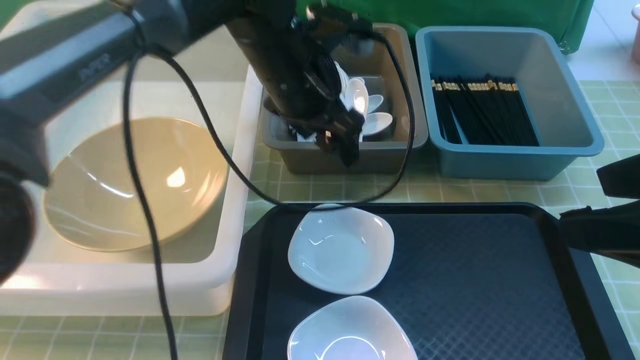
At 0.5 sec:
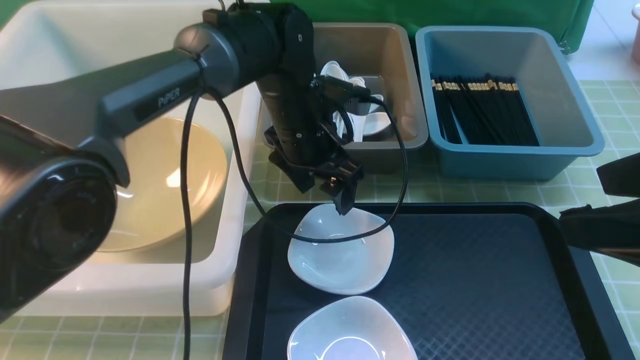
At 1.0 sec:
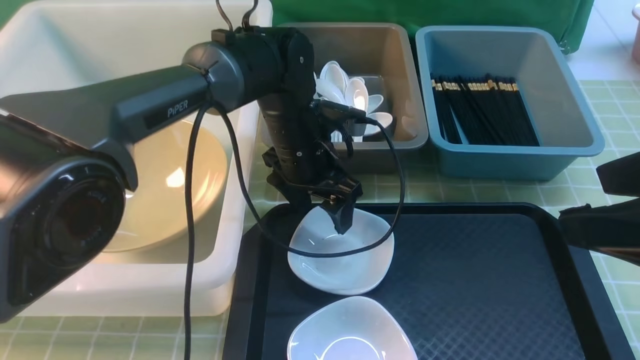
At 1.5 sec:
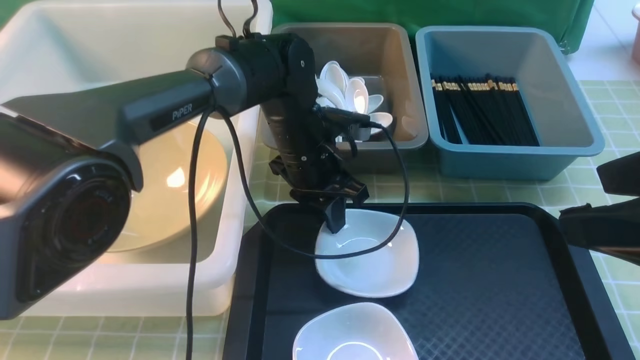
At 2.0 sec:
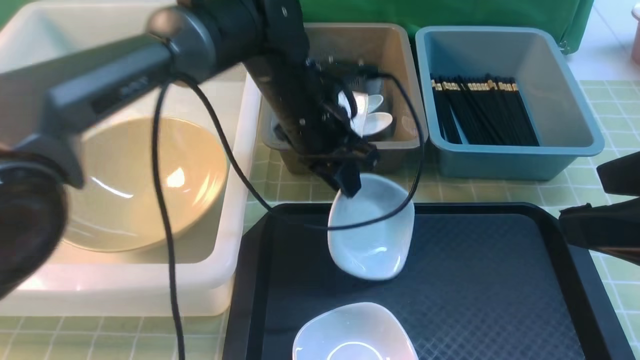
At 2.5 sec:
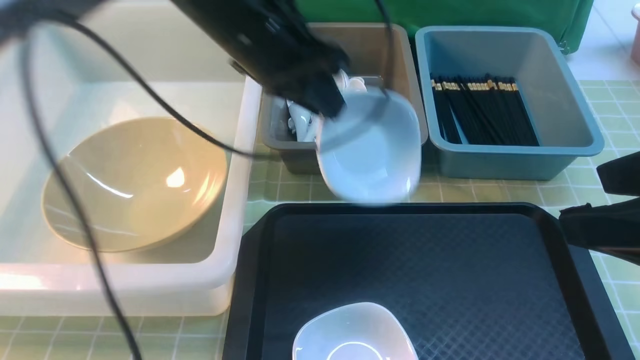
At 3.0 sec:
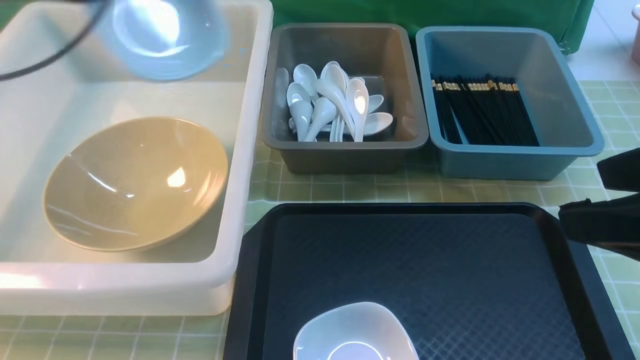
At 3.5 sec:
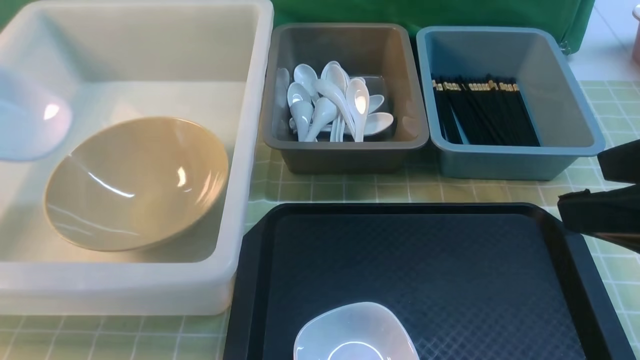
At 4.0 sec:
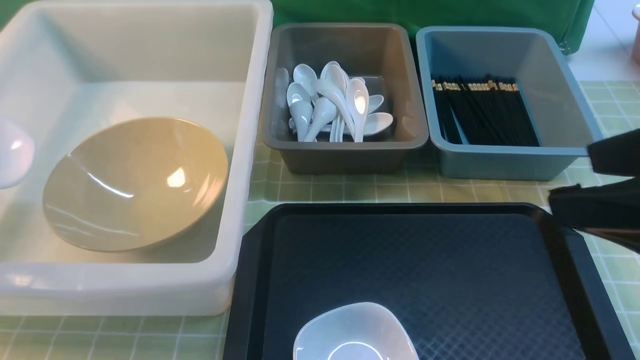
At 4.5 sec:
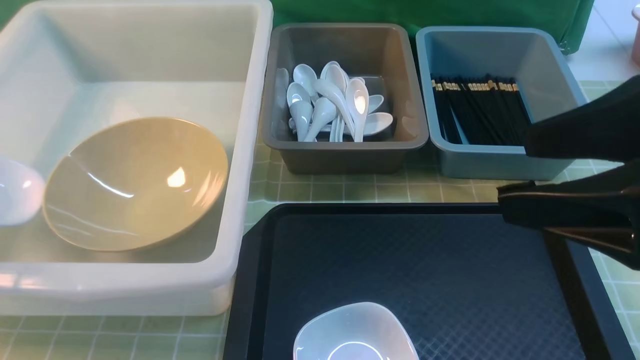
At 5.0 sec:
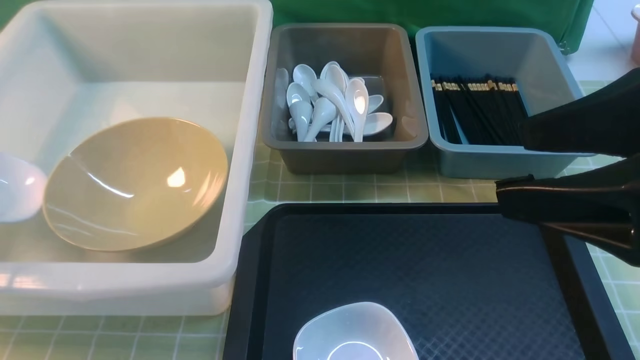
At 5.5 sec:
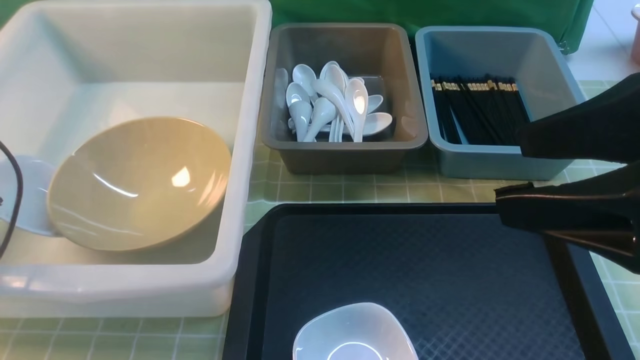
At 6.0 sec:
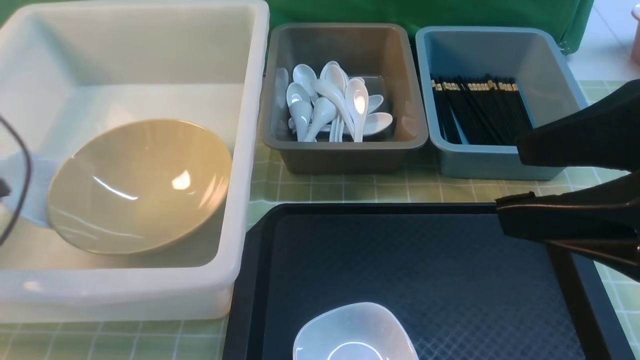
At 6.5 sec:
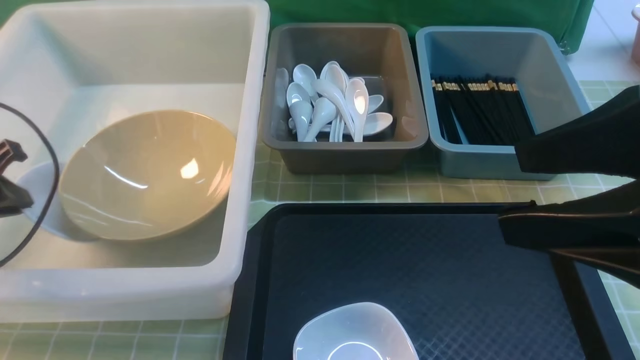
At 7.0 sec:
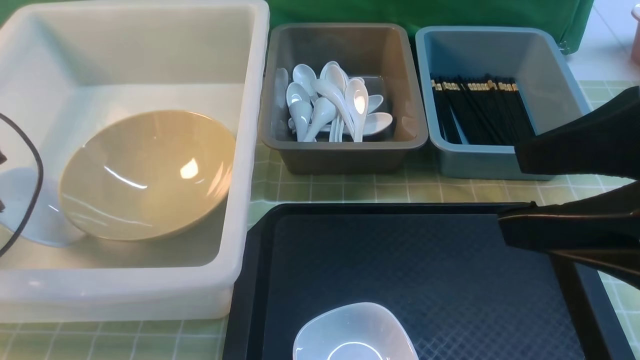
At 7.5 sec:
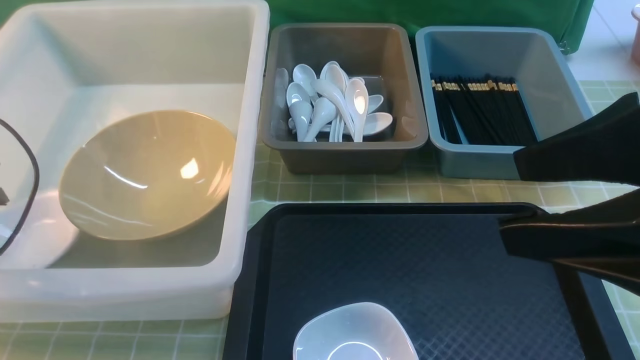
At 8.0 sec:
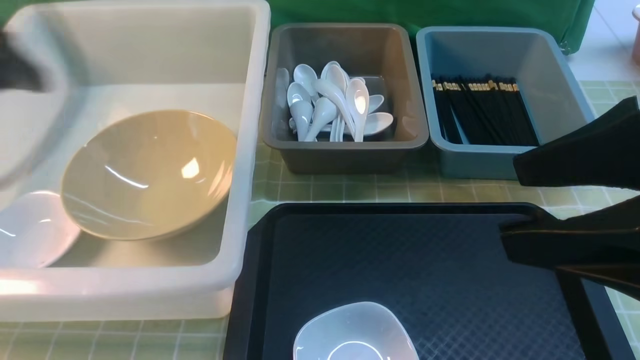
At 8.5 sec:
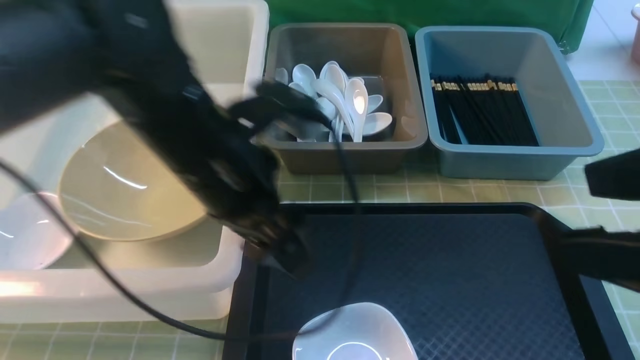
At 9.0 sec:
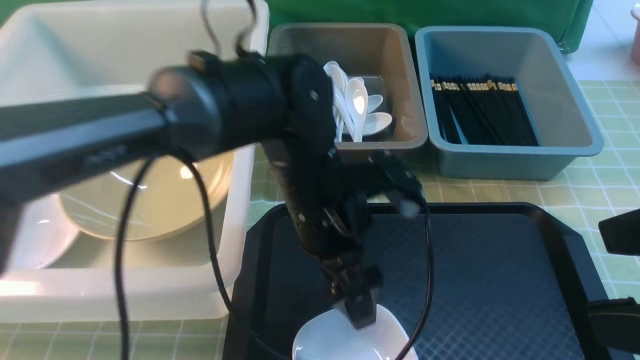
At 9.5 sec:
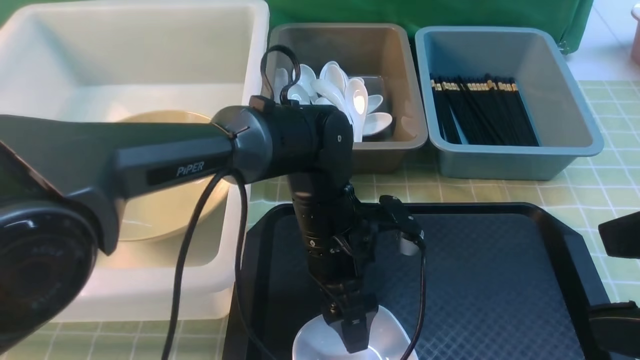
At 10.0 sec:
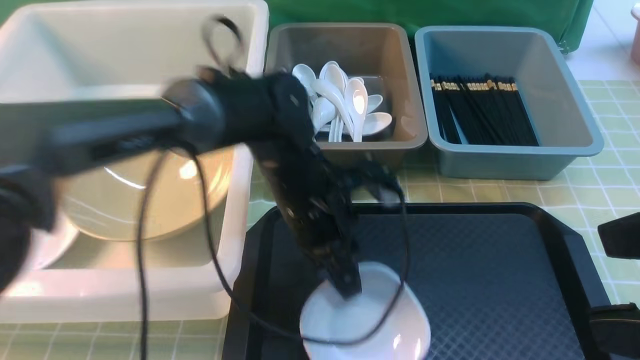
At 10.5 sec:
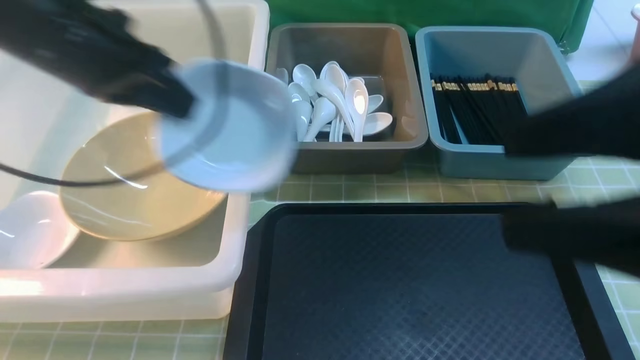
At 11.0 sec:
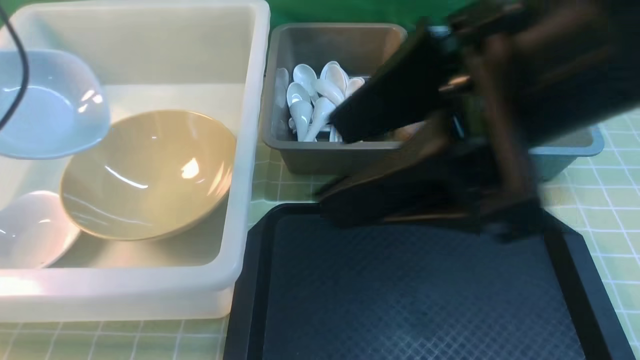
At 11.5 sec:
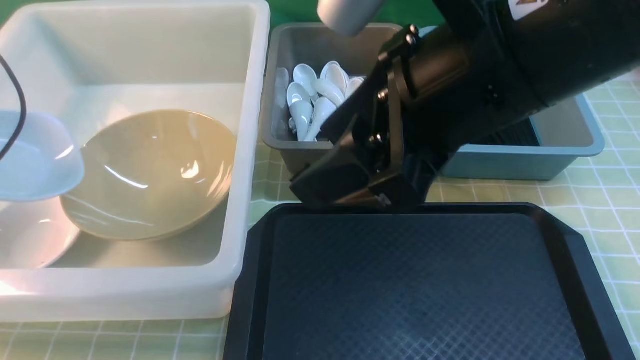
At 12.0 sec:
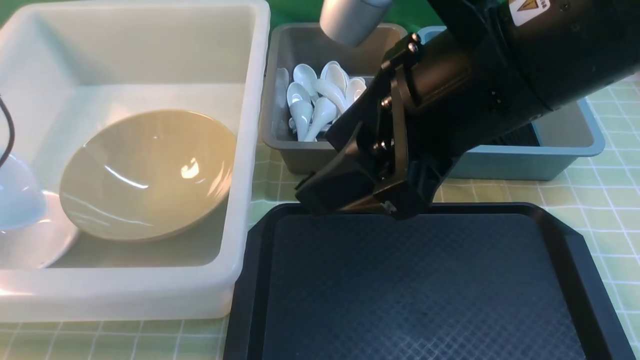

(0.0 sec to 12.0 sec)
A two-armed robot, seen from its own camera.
Task of the whole recording: on green table put chopsticks spoon bowls plates into blue grey white boxes.
Step, 0.0 sec - 2.0 sec: use the left arm to grab the plate.
Step, 2.5 sec - 7.5 sec: use the left arm to put the plate into the large storage box on the left.
Step, 8.0 sec - 10.0 sec: use the left arm to grab the plate.
0.0 sec - 2.0 sec: The left gripper goes downward and returns, roughly 10 cm each way, and closes its fingers.
2.0 sec - 4.0 sec: The left gripper moves to the left, roughly 40 cm.
4.0 sec - 6.0 sec: The left gripper goes approximately 5 cm downward.
6.0 sec - 8.0 sec: The left gripper is displaced upward and to the right by approximately 15 cm, and opens its fingers.
8.0 sec - 10.0 sec: The right gripper is displaced backward by about 5 cm; the left gripper heads to the right and downward, covering roughly 25 cm, and closes its fingers.
10.0 sec - 12.0 sec: The left gripper shifts approximately 40 cm to the left. Meanwhile the right gripper heads to the left and forward, covering some 20 cm.

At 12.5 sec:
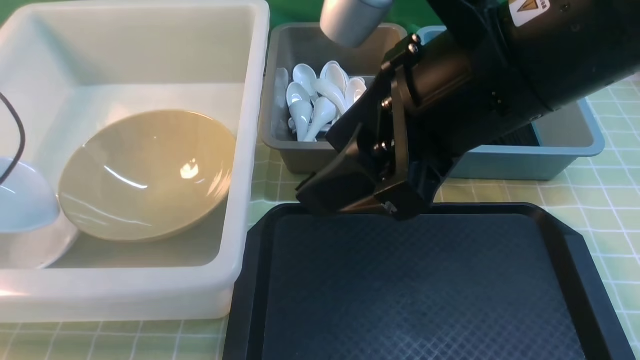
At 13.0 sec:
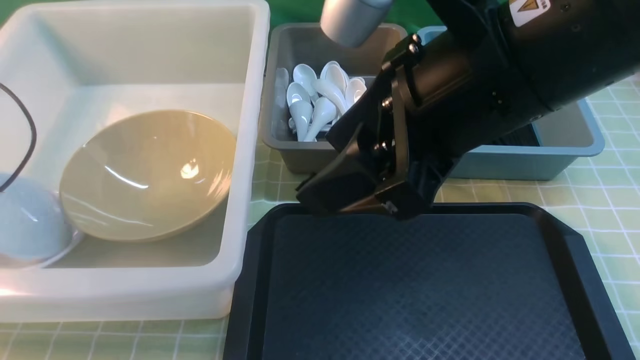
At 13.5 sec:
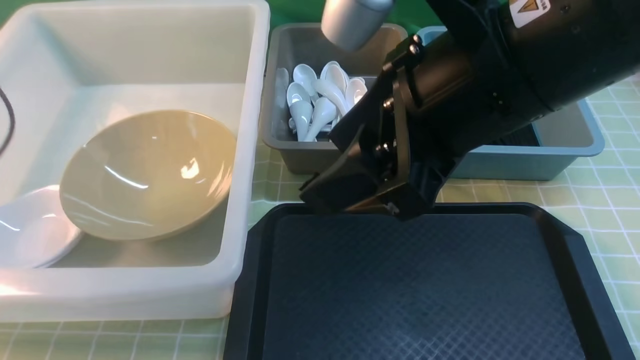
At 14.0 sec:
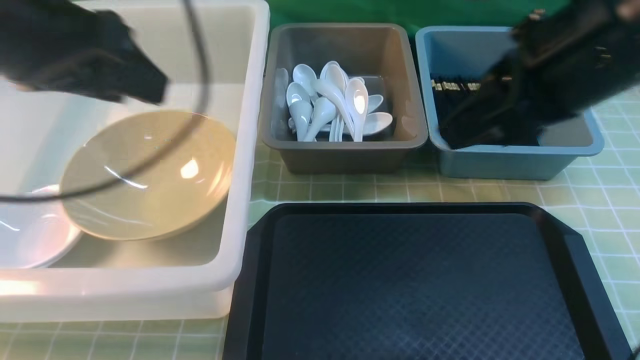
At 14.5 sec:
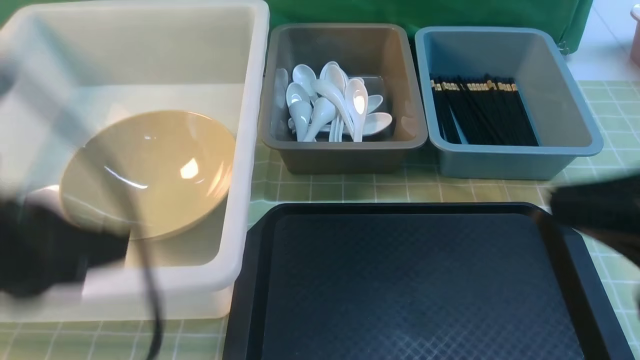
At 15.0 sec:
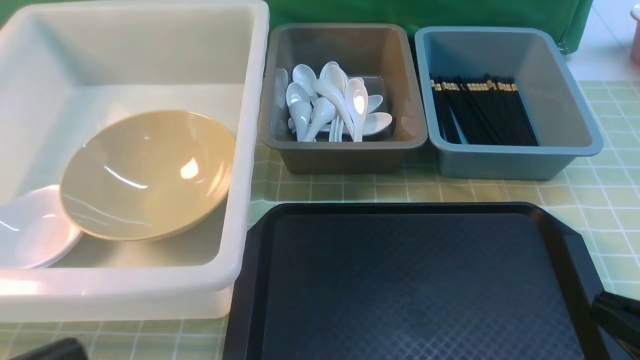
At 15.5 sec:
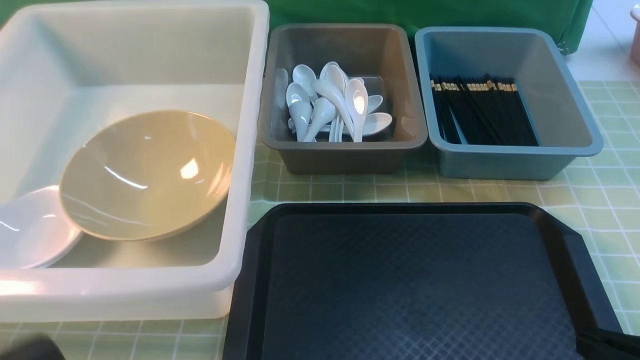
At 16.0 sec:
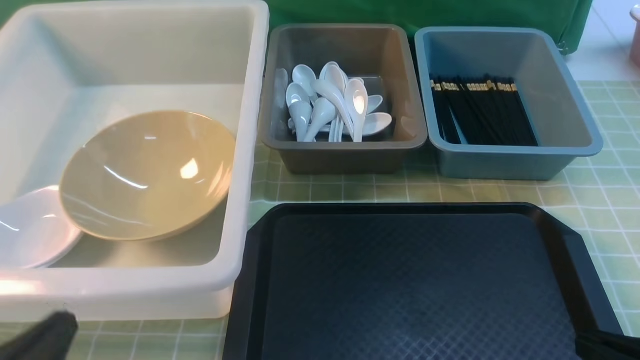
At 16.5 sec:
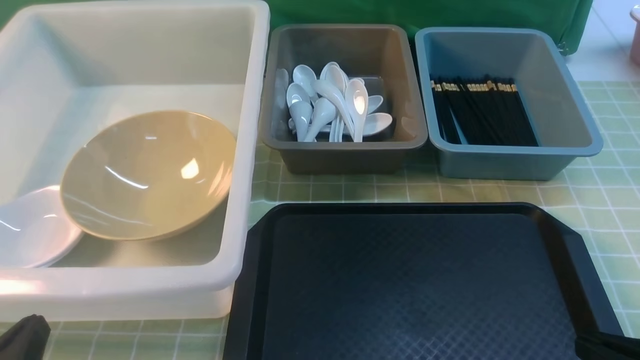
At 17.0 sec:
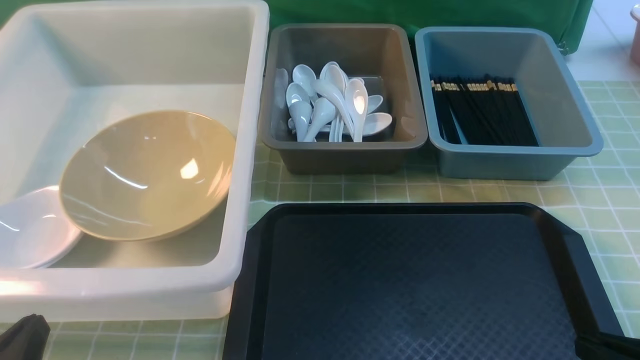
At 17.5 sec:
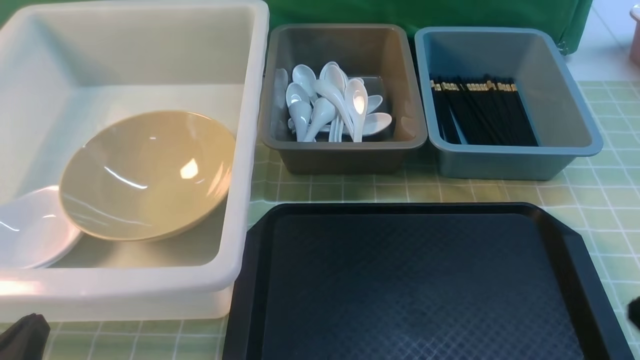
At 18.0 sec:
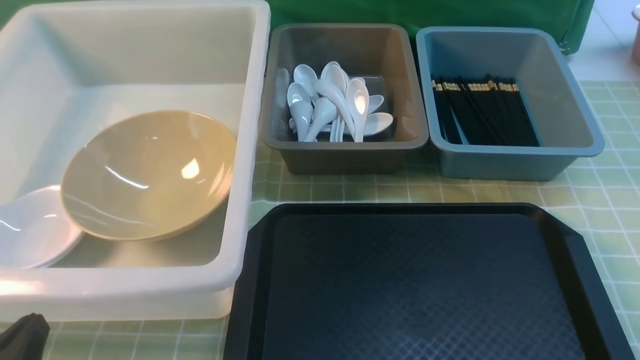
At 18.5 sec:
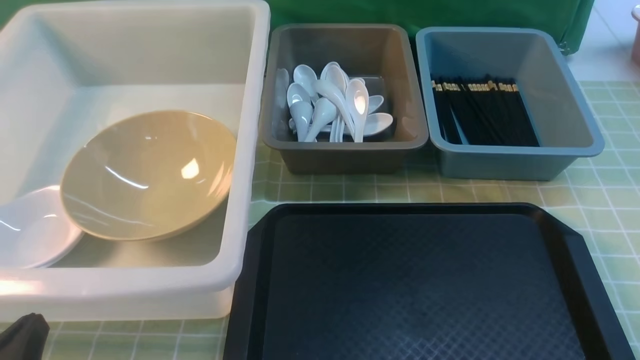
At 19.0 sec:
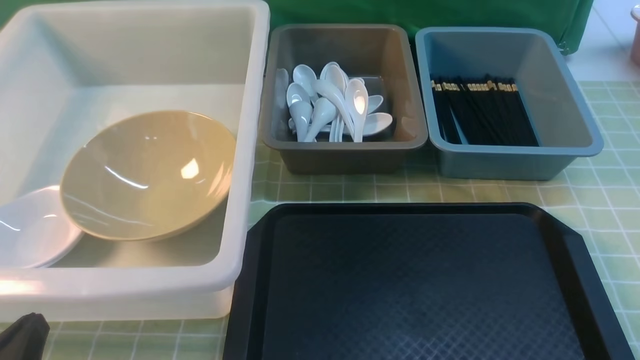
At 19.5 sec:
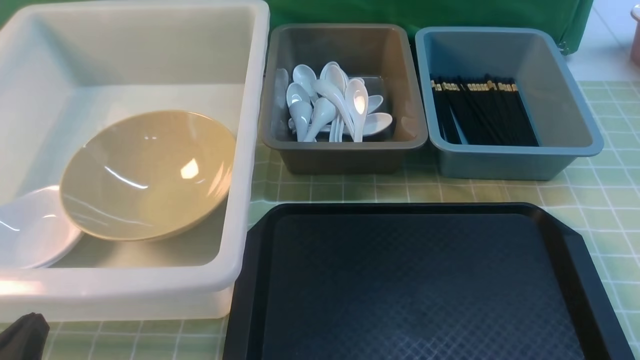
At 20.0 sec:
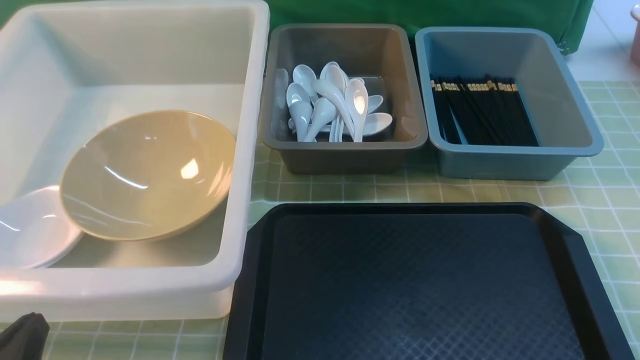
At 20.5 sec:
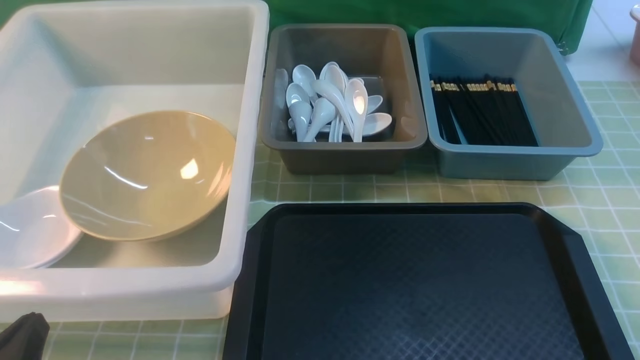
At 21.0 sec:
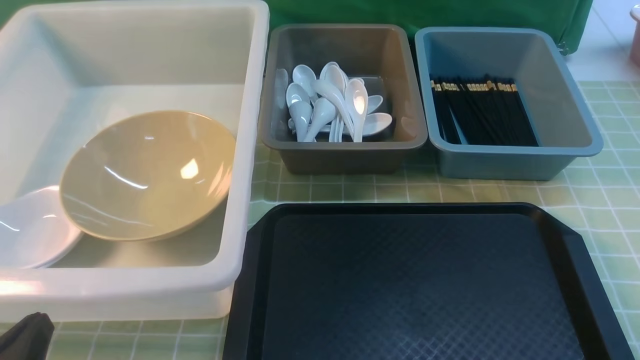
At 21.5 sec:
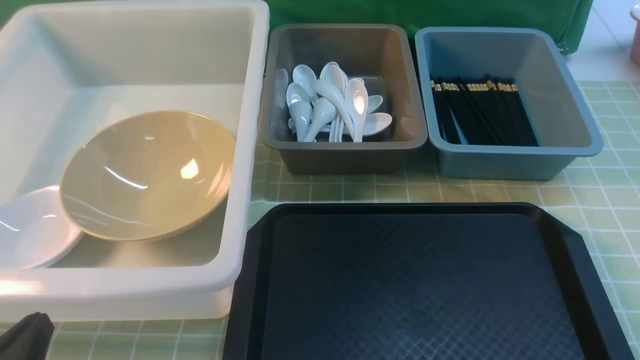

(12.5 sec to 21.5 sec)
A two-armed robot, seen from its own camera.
Task of the whole recording: on green table put chopsticks spoon bowls plates into blue grey white boxes.
12.5 sec - 14.5 sec: The left gripper shifts approximately 30 cm to the right and backward, and opens, then closes once more; the right gripper shifts roughly 20 cm to the right, backward and downward, and closes.
14.5 sec - 17.0 sec: The left gripper is displaced downward by about 20 cm. Meanwhile the right gripper is displaced downward and backward by some 15 cm.
19.5 sec - 21.5 sec: Neither gripper changes place.
